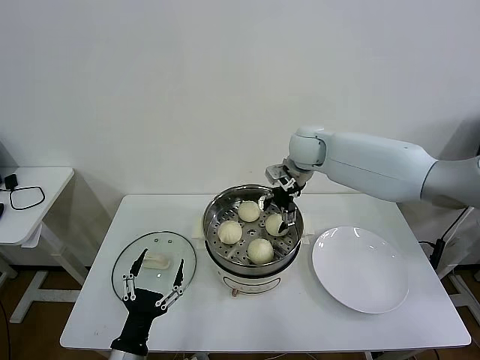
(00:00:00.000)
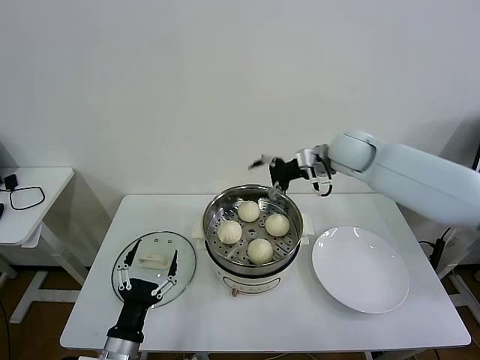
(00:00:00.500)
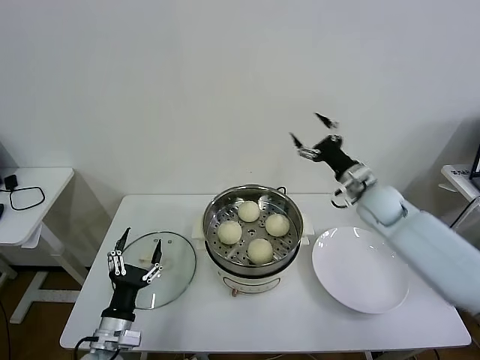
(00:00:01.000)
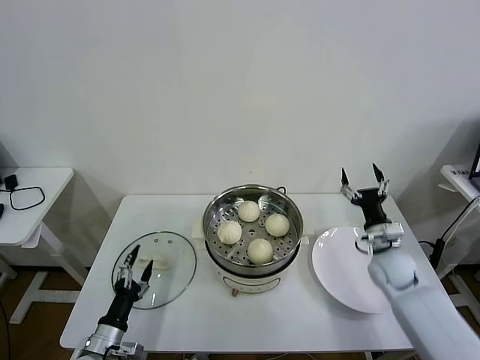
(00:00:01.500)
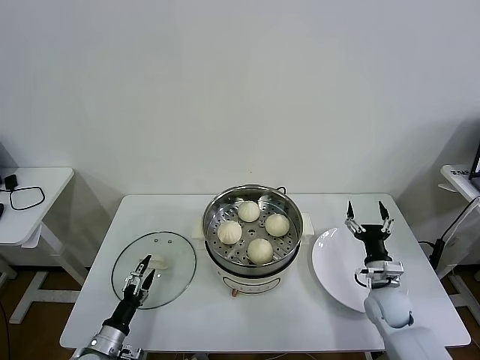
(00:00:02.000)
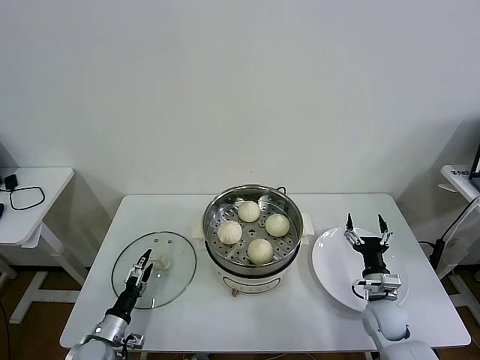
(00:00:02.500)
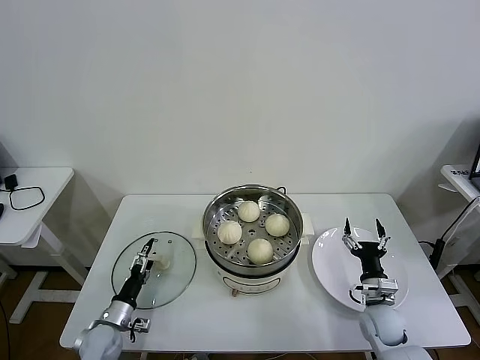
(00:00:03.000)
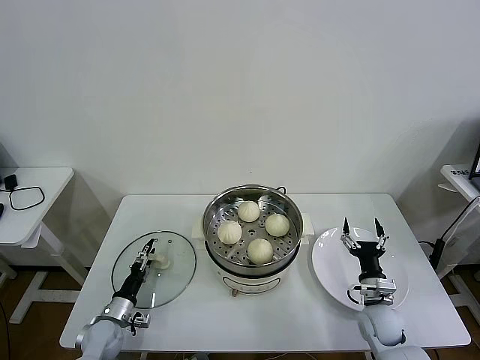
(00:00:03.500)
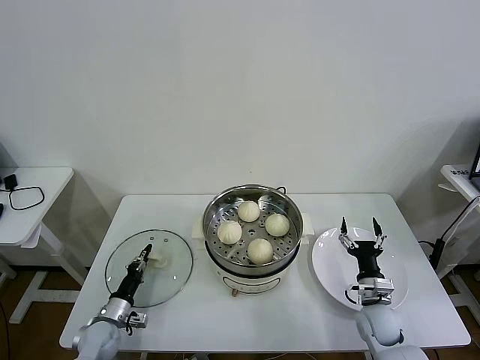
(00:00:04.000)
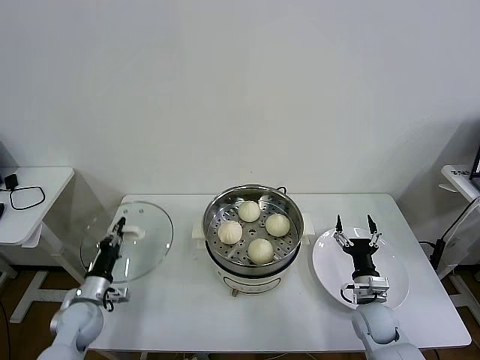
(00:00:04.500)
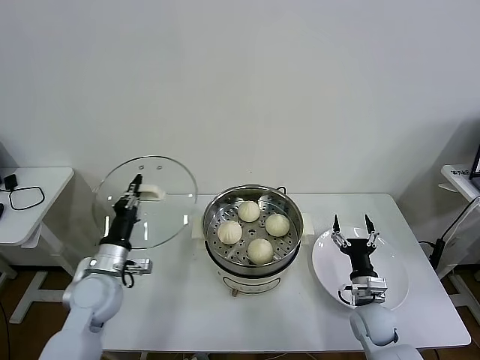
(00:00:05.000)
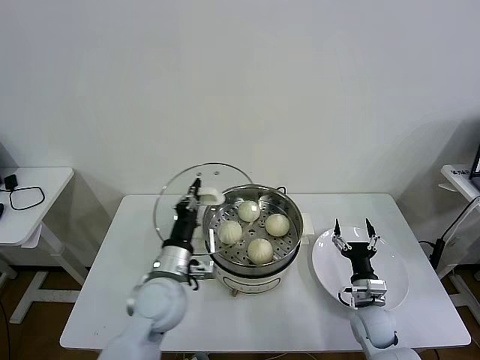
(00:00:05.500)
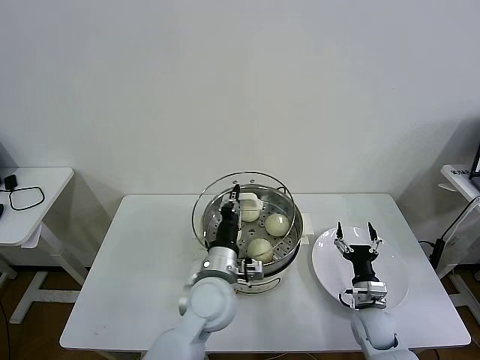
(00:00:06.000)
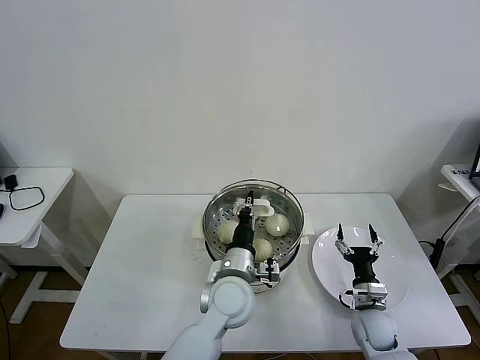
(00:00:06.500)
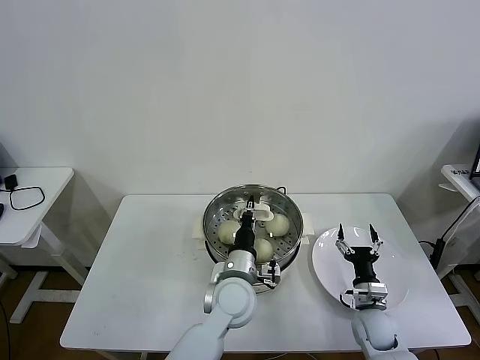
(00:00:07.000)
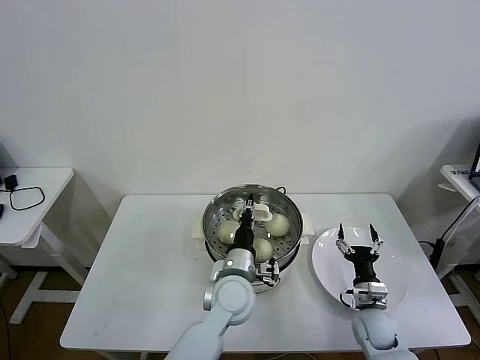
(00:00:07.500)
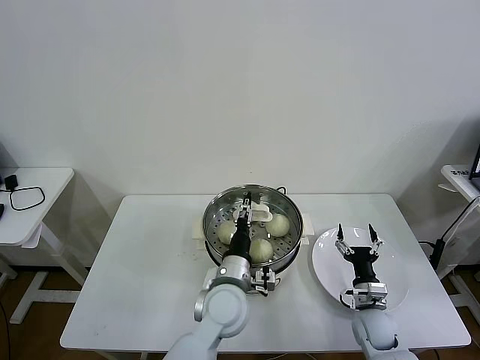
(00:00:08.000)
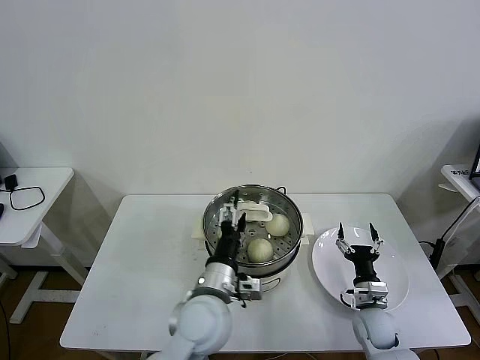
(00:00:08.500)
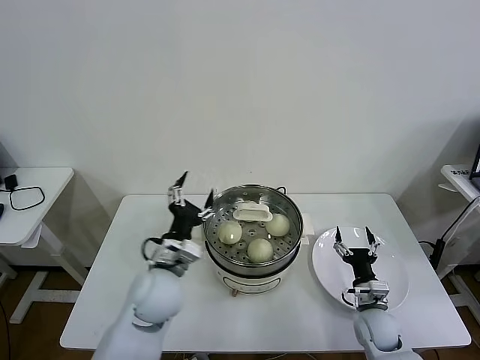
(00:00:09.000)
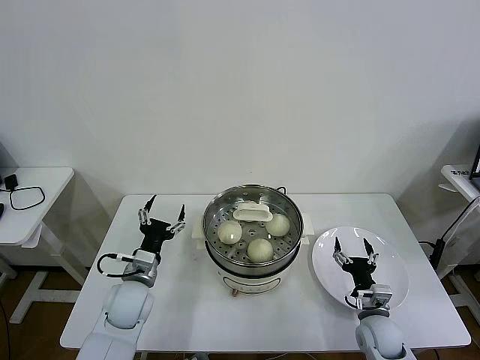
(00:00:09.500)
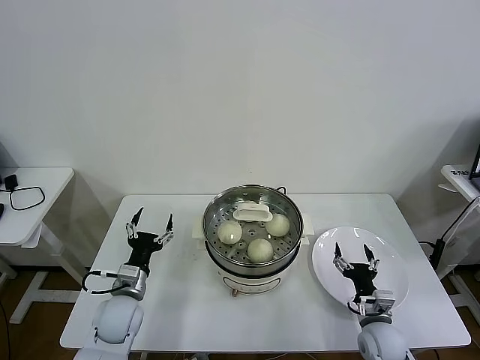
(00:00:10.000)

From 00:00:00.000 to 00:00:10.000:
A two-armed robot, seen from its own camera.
Task of the whole recording: take steamed baozi put them in steamer then cover it.
Step, from 00:00:00.000 to 00:00:04.000: Grasp the pot lid with left gripper.
Step, from 00:00:04.500 to 00:00:07.500: Place the pot lid on the steamer with left gripper.
From 00:00:00.000 to 00:00:02.000: The right gripper travels downward, backward and to the right by some 40 cm, while the left gripper is displaced downward, to the left and forward by approximately 20 cm.
From 00:00:02.000 to 00:00:04.000: The left gripper heads forward, covering some 10 cm, and closes its fingers.
From 00:00:04.000 to 00:00:06.000: The left gripper moves to the right and upward, roughly 35 cm.
From 00:00:06.000 to 00:00:08.000: The left gripper opens its fingers.
From 00:00:08.000 to 00:00:10.000: The left gripper goes about 25 cm to the left, and opens.
